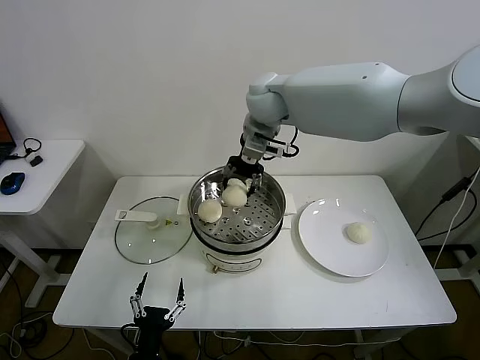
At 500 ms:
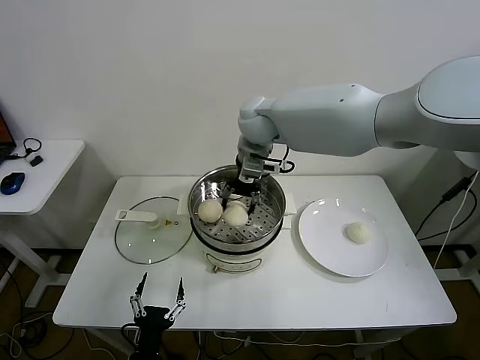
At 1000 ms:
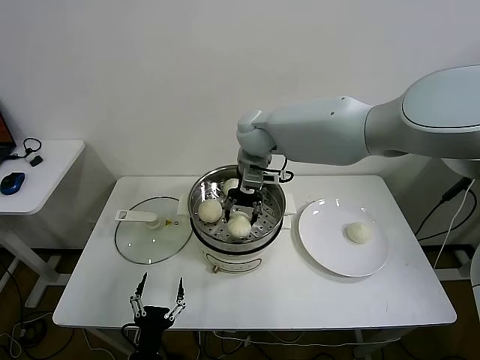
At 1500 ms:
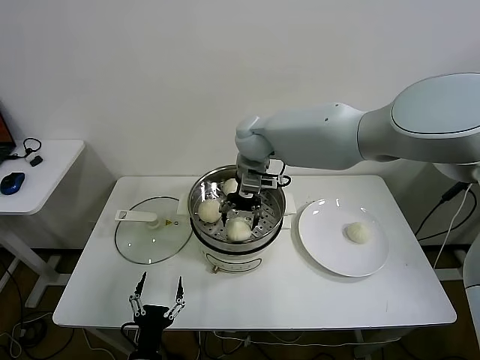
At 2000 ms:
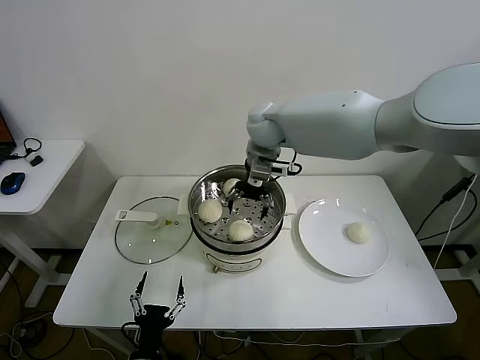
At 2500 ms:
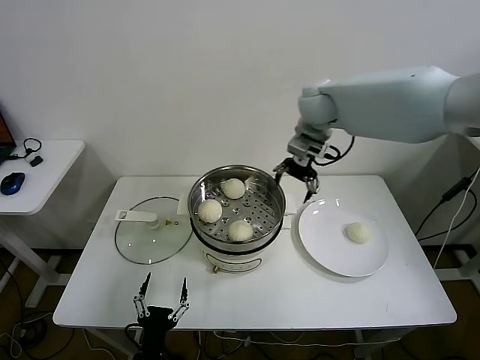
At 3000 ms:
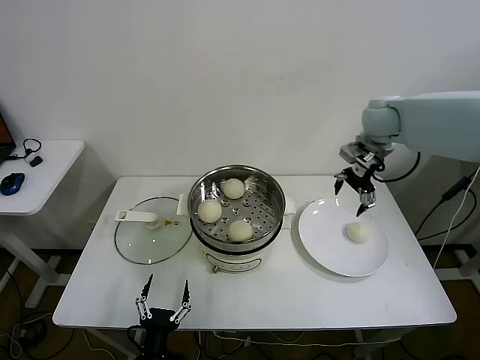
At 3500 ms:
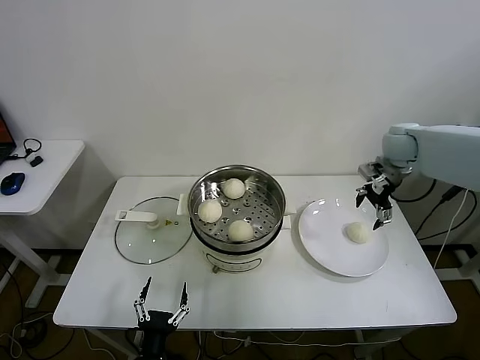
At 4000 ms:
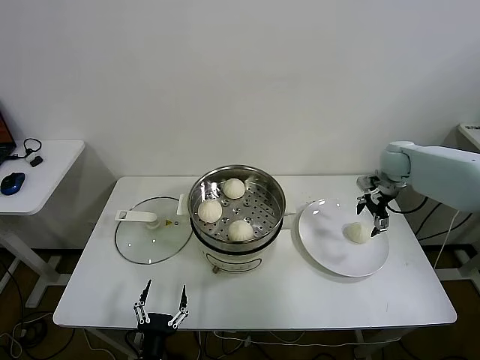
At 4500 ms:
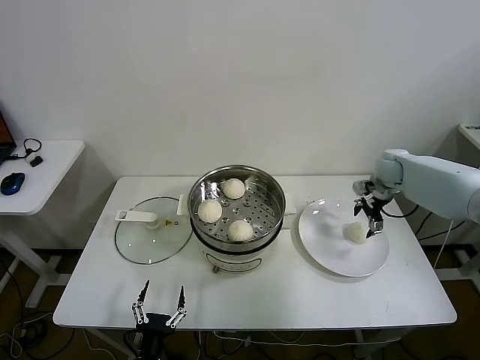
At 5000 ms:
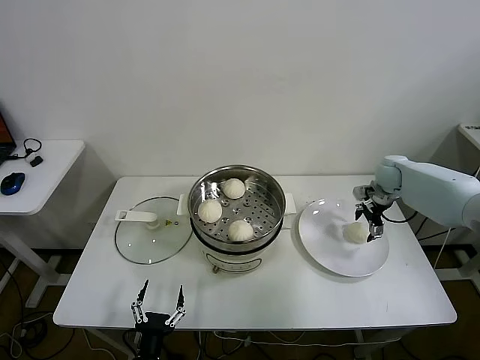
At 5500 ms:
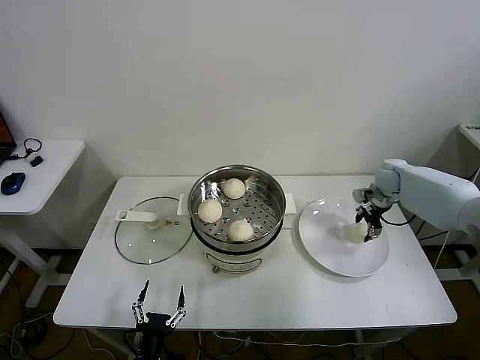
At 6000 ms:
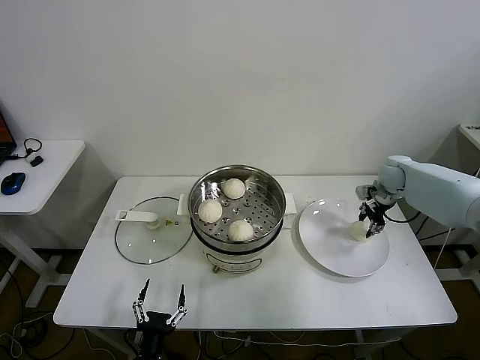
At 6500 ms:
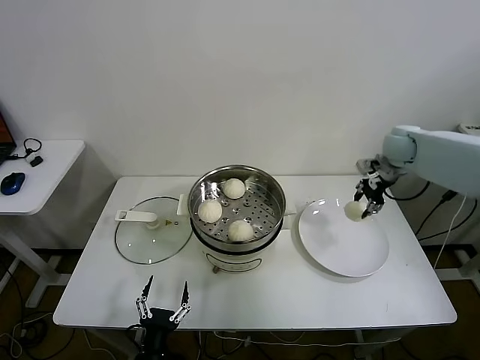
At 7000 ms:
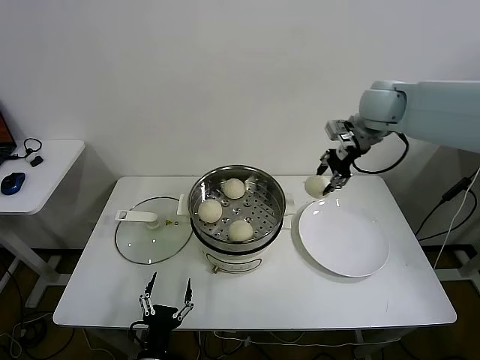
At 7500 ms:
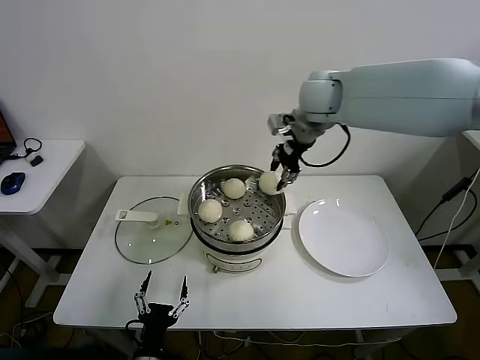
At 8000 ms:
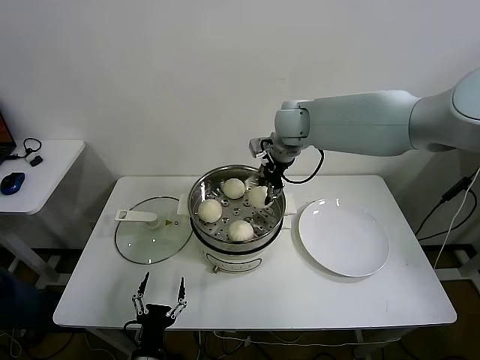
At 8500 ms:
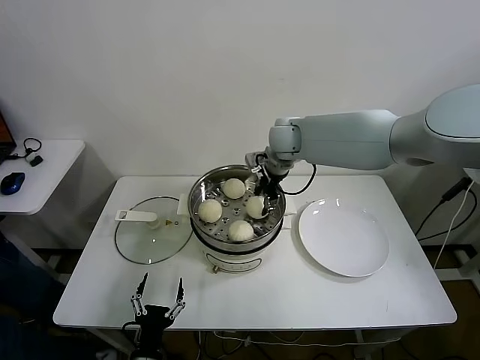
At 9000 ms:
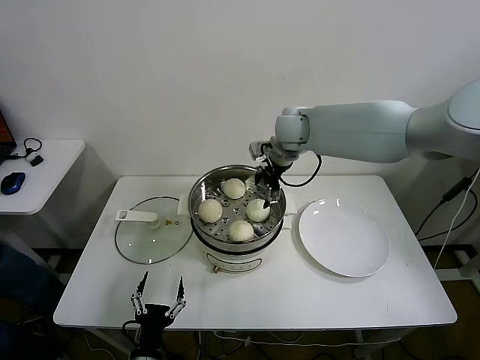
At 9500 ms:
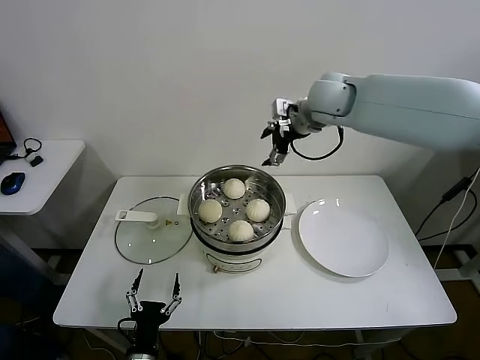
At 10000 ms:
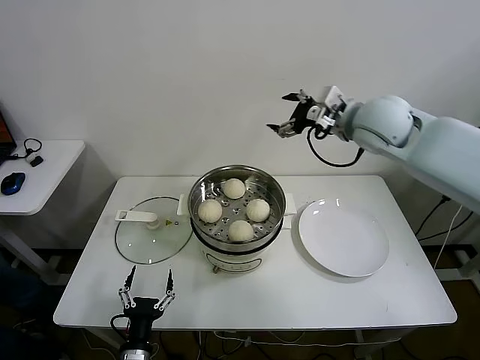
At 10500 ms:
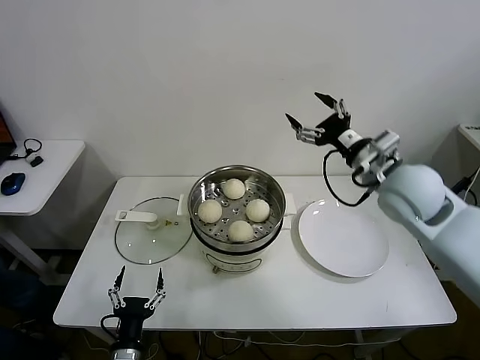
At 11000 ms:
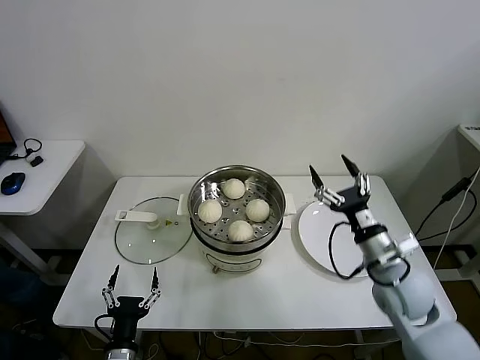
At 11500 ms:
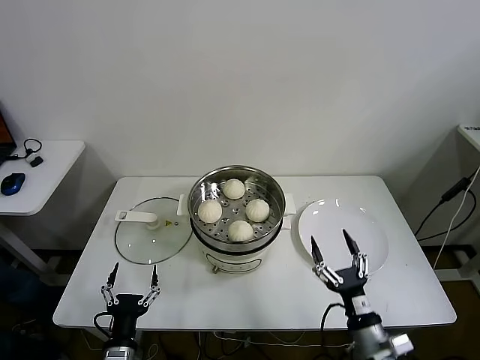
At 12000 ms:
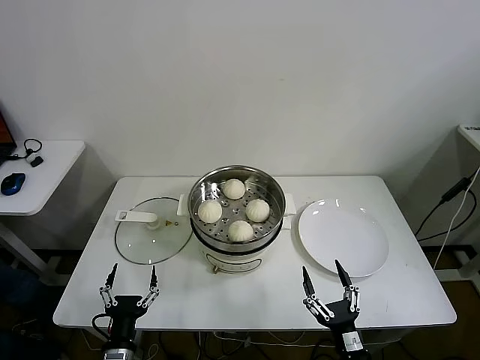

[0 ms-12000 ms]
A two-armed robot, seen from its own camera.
Task of the whole recording: take steamed baozi put them in steamer.
Step, 2000 ms to 5500 ms: Grasp the baozi in the plate with right gripper.
Step, 6000 ms to 8500 ms: Place the baozi on the steamer with right gripper.
0 ms to 2000 ms: The right gripper moves downward, approximately 5 cm, and opens up.
2000 ms to 4000 ms: The right gripper goes some 35 cm to the right.
4000 ms to 6000 ms: The right gripper travels downward by roughly 5 cm, and closes its fingers.
6000 ms to 8000 ms: The right gripper is displaced to the left and upward by some 35 cm.
8000 ms to 10000 ms: The right gripper shifts about 15 cm to the right and backward, and opens up.
10000 ms to 12000 ms: The right gripper travels backward and downward by roughly 60 cm.
